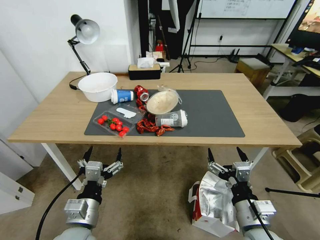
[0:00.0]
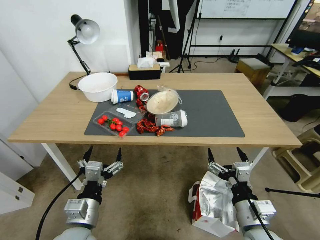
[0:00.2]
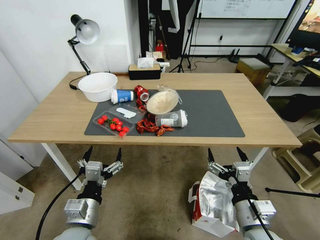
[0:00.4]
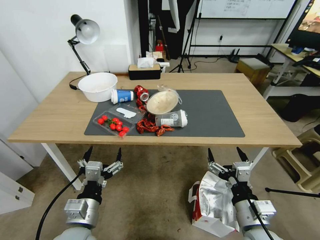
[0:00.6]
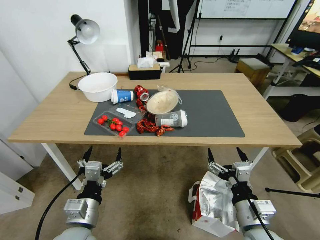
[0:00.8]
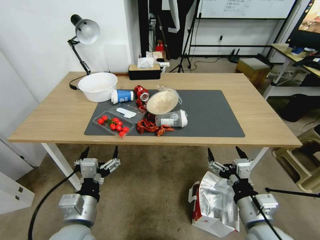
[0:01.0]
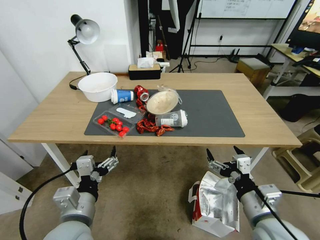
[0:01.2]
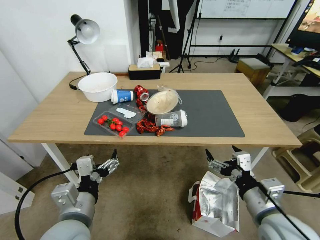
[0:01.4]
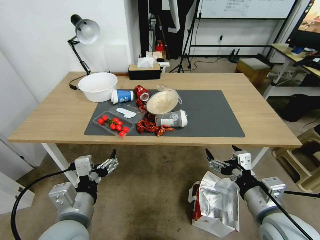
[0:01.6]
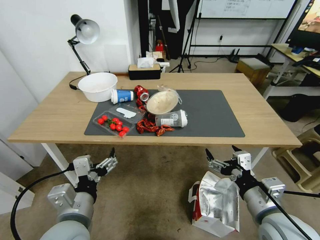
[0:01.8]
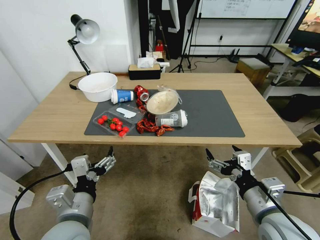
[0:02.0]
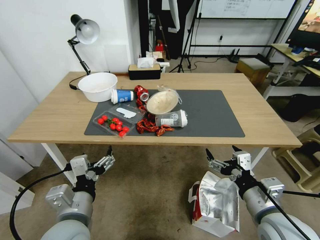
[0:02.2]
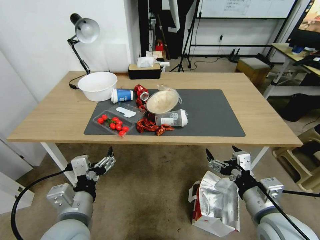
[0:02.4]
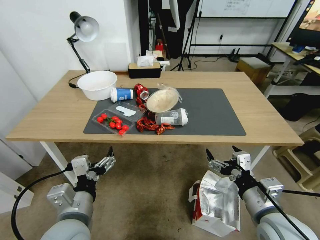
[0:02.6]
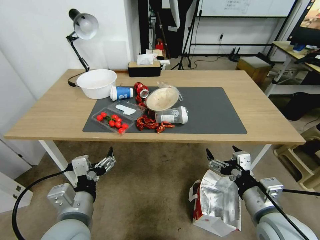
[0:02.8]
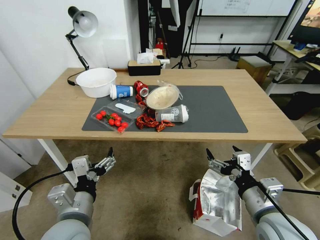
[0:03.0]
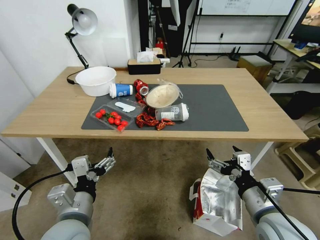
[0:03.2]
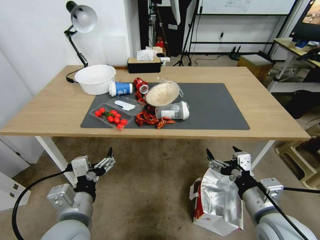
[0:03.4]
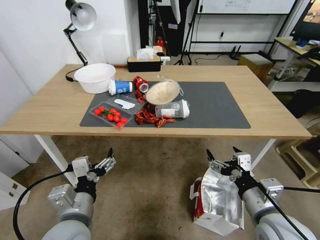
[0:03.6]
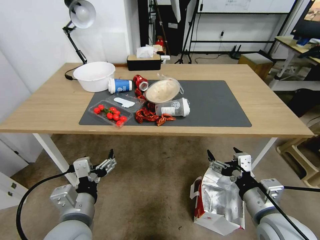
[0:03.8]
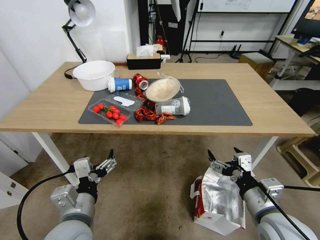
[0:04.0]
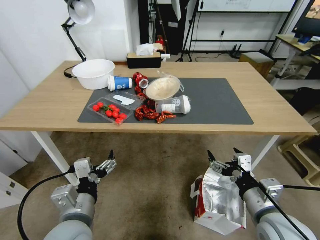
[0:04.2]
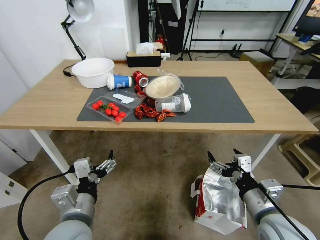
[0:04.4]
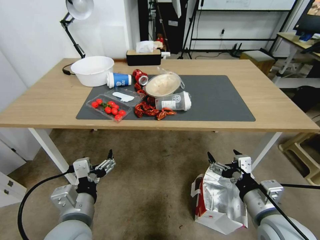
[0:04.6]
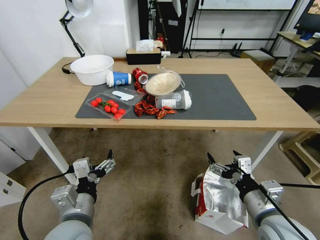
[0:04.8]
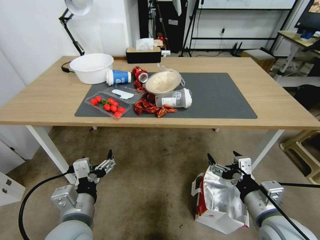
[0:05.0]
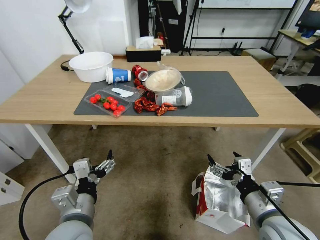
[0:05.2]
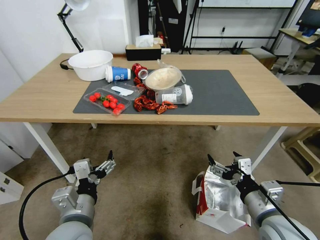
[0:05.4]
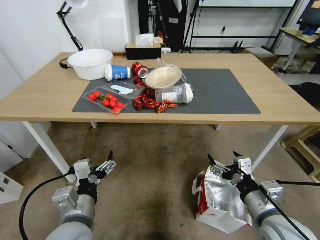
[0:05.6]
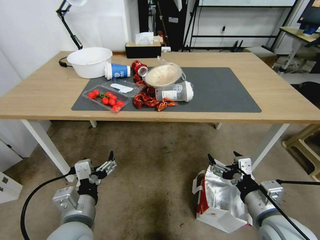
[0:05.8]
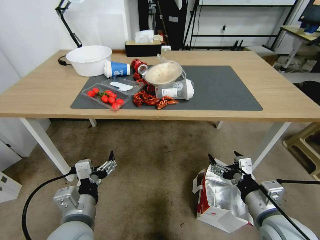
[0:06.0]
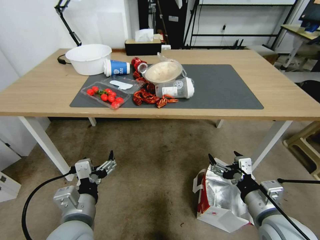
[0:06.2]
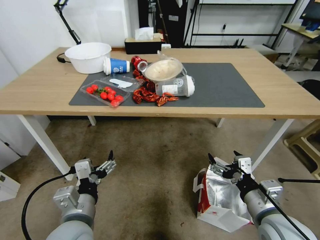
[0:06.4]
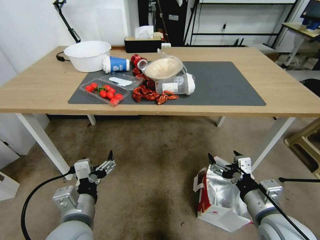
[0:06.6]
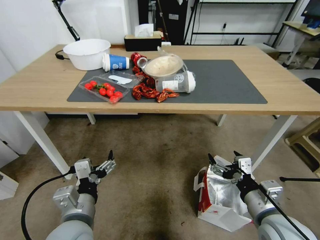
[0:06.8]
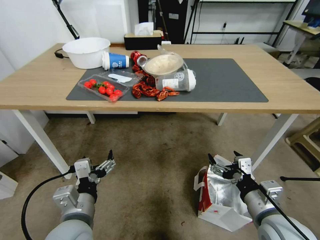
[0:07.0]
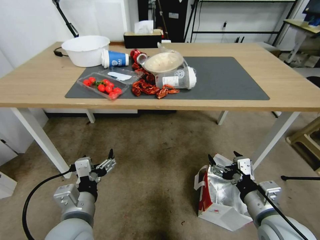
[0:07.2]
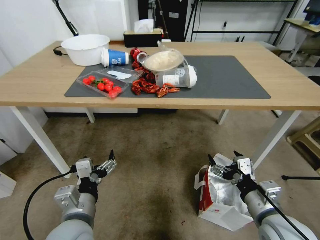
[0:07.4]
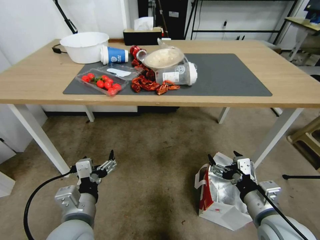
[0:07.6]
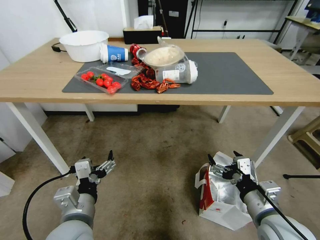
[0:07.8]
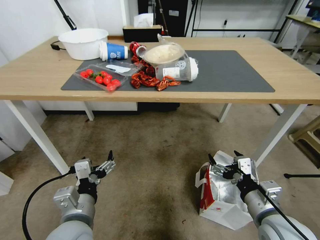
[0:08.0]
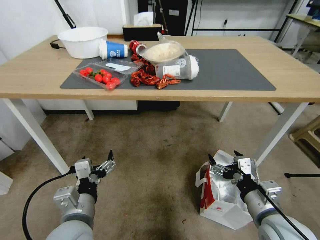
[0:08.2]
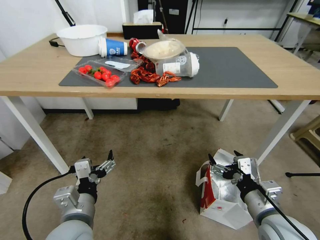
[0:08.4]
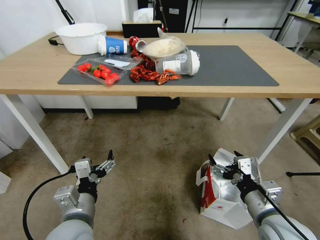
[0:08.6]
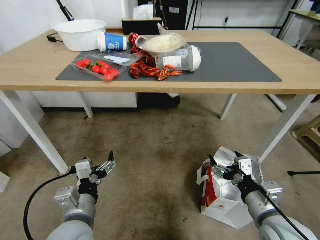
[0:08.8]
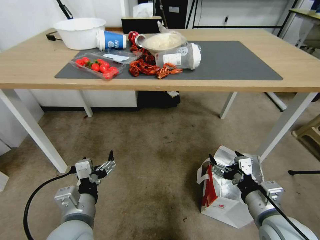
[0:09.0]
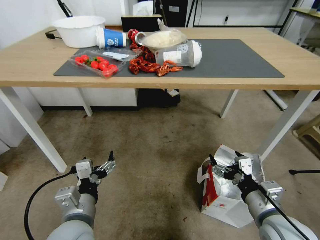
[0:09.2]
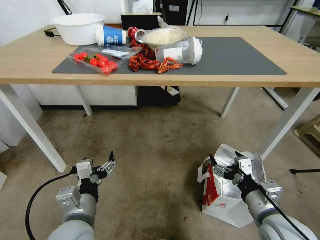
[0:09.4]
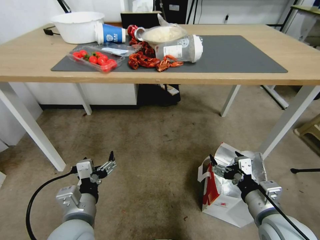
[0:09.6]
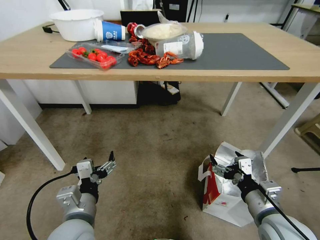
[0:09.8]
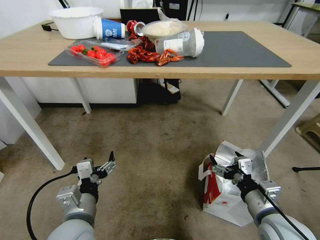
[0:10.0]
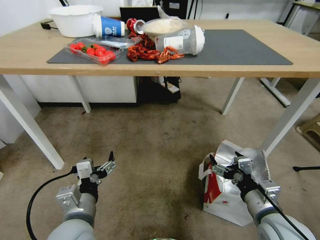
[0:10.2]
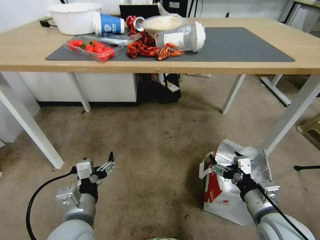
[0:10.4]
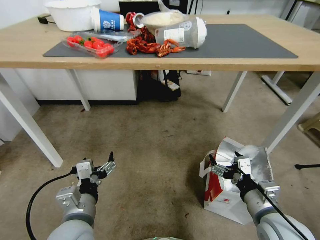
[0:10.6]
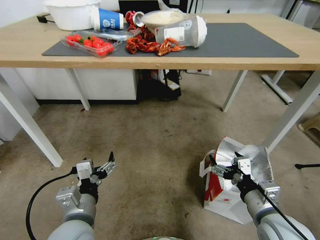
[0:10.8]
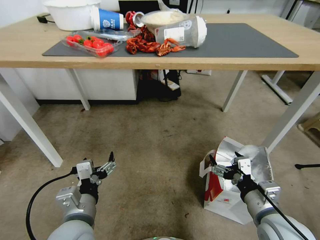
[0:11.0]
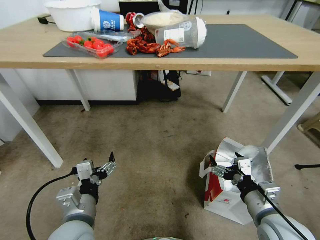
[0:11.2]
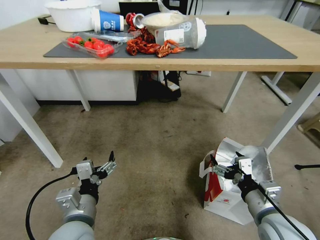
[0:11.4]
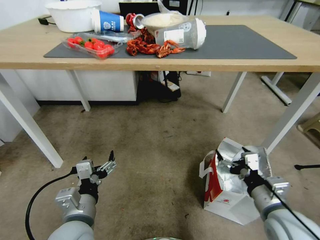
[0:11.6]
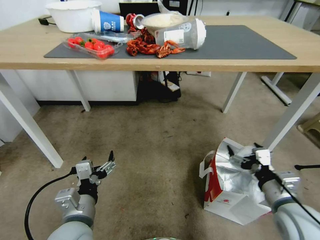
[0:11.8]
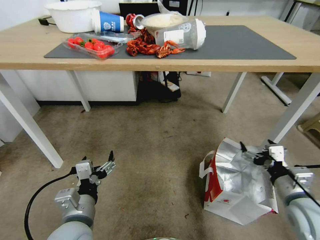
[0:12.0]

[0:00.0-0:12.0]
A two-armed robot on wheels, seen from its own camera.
Task of the whole recording: Pick up the food delivery bag from the floor and place it on the table.
0:10.4 to 0:12.0: The right gripper travels to the right by roughly 10 cm.

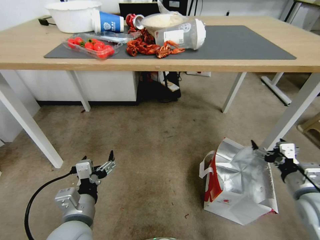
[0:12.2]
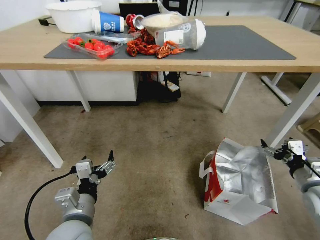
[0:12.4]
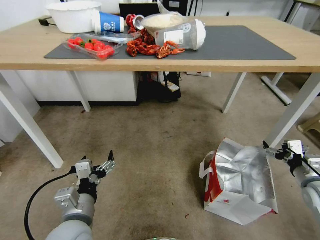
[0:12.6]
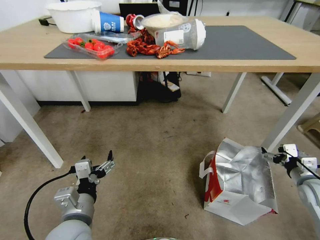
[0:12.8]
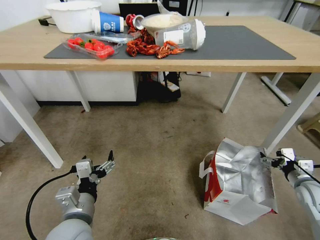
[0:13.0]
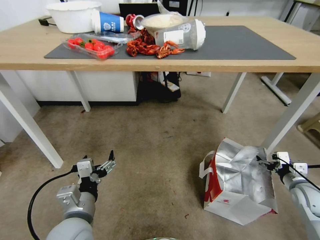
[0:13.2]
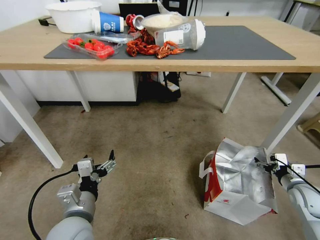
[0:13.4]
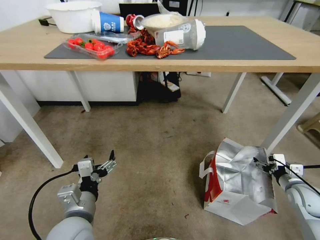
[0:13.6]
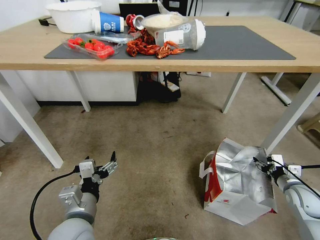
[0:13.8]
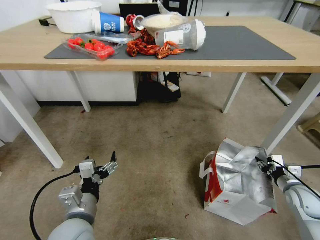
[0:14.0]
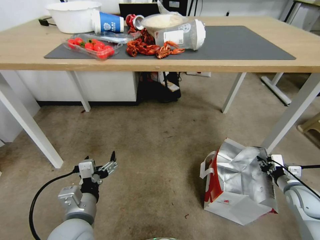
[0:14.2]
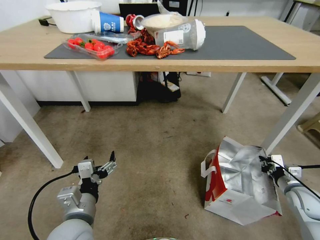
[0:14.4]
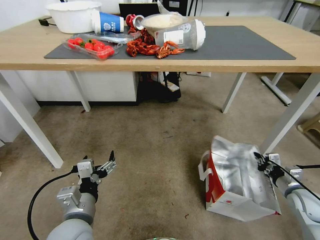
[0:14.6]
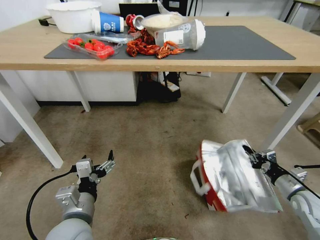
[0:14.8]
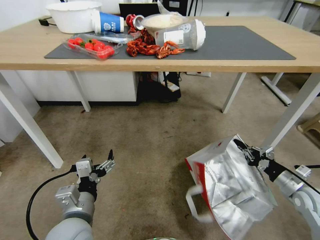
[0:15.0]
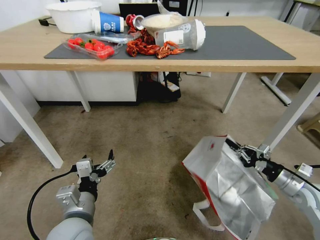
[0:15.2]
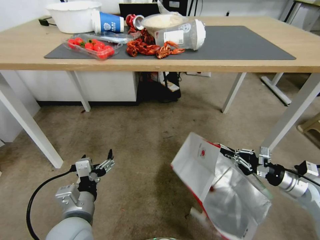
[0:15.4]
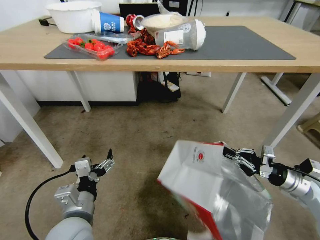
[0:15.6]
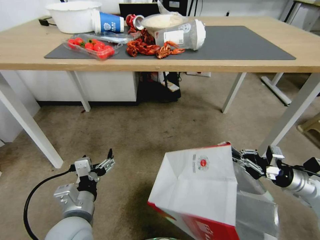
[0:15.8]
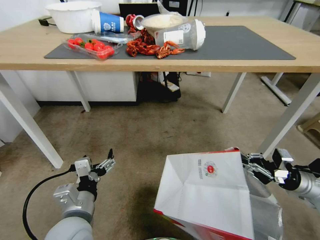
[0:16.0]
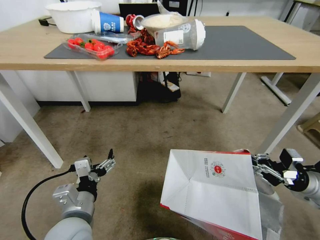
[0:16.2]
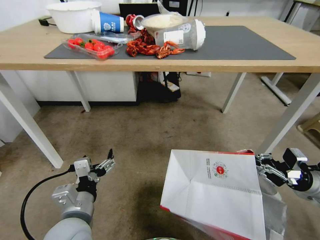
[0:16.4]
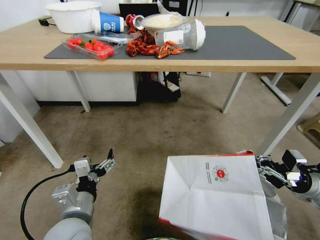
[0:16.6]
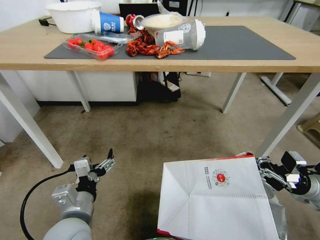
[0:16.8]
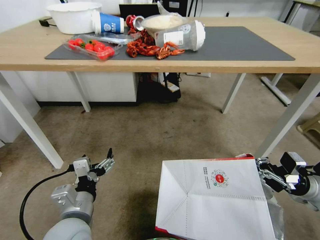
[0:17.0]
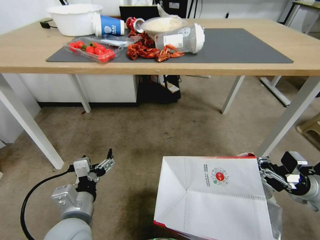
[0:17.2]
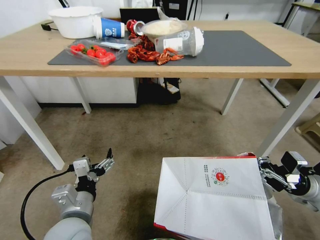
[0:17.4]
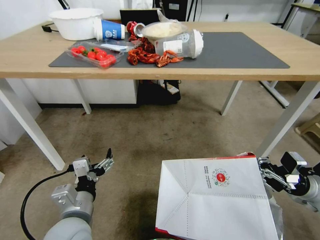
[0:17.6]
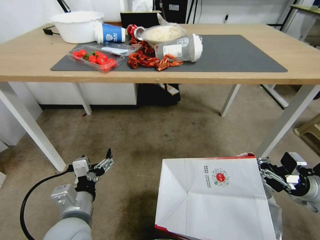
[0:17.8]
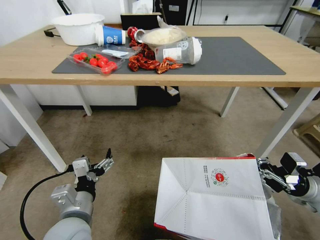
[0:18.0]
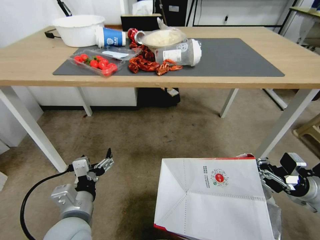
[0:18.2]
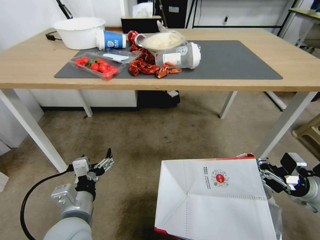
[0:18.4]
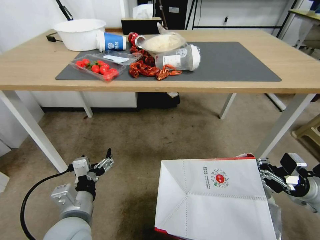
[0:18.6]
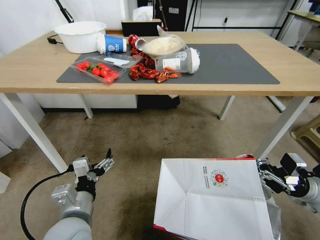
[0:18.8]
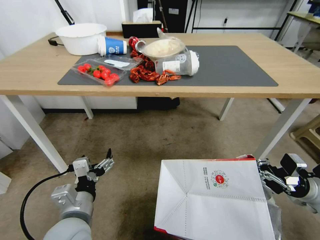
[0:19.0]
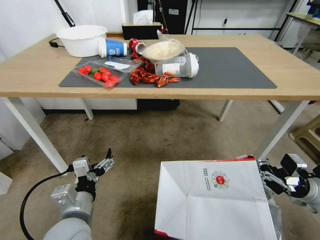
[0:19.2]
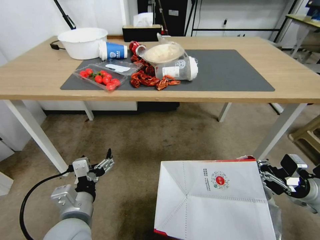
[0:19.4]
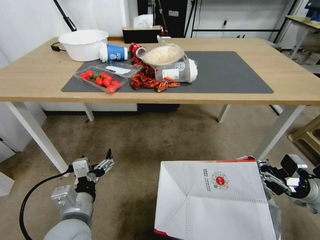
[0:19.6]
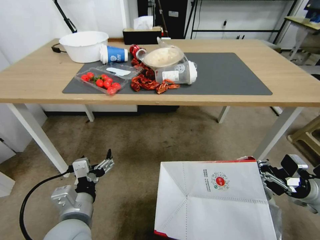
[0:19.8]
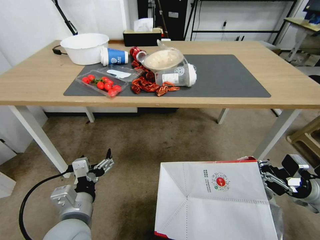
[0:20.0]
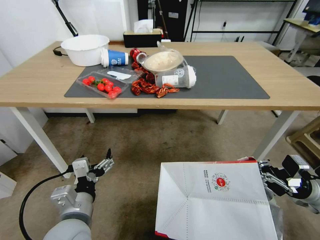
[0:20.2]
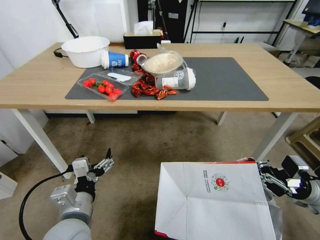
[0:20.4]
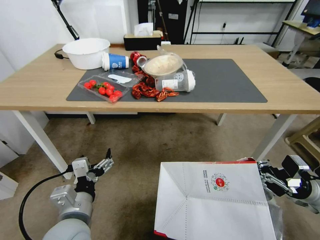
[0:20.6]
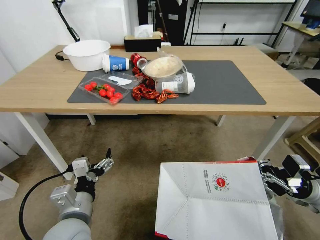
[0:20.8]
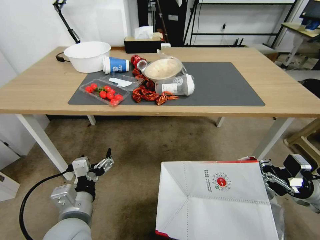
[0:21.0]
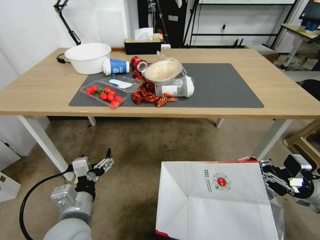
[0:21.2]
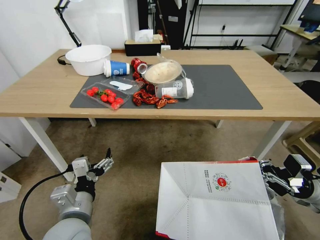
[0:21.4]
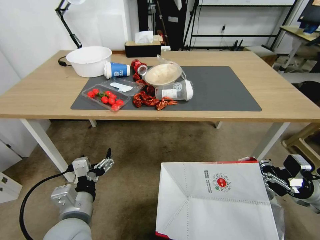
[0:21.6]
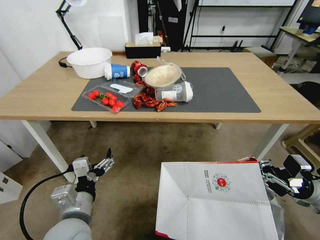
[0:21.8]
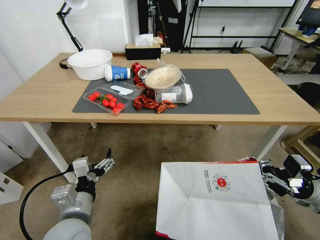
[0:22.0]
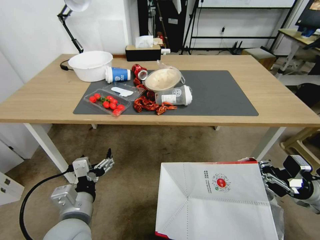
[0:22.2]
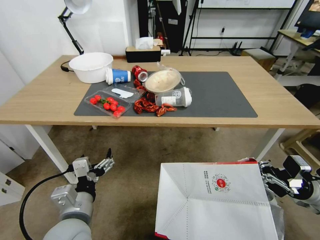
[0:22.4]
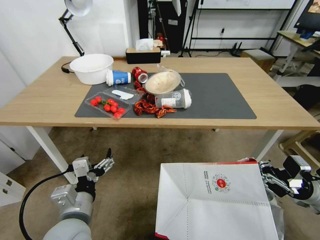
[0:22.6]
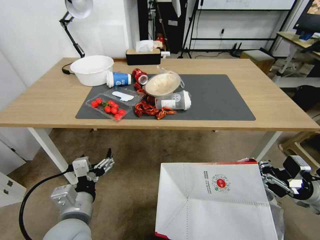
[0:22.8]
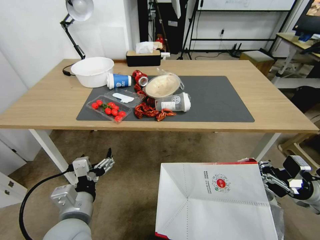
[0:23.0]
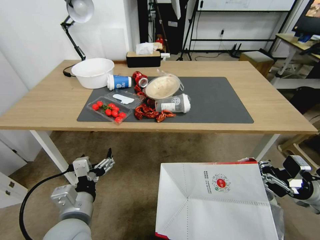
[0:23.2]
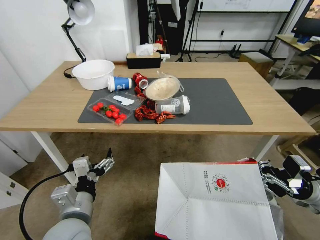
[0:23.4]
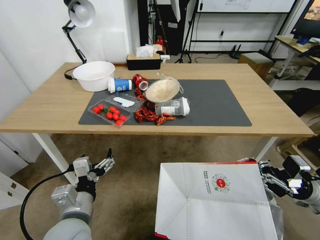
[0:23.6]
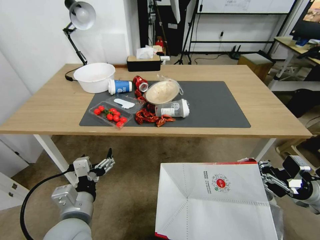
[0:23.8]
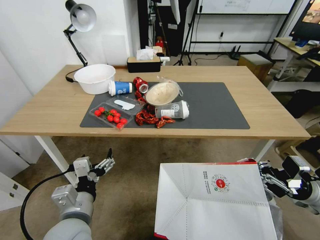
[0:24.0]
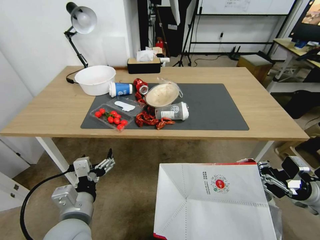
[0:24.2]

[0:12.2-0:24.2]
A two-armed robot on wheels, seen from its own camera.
Task of the whole recording: Pick up the food delivery bag from the floor and place it on the table.
0:12.2 to 0:13.8: The right gripper shifts about 15 cm downward, to the right and forward.
0:13.8 to 0:15.2: The right gripper closes.
0:15.2 to 0:16.6: The right gripper heads upward, covering roughly 10 cm.
